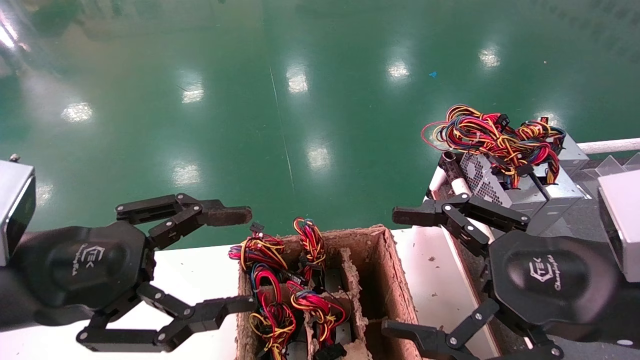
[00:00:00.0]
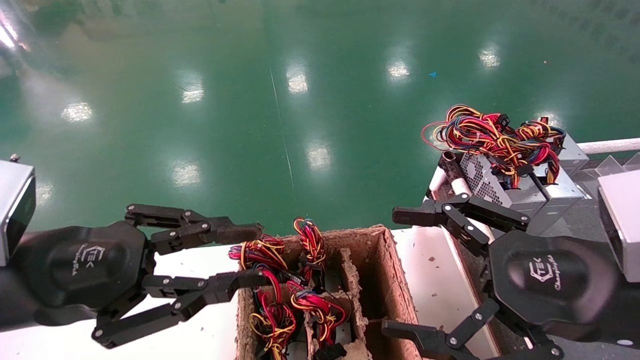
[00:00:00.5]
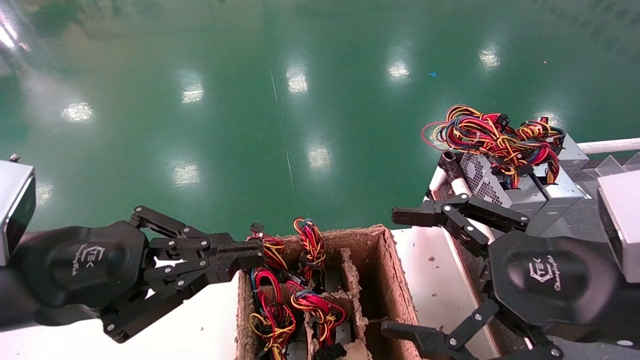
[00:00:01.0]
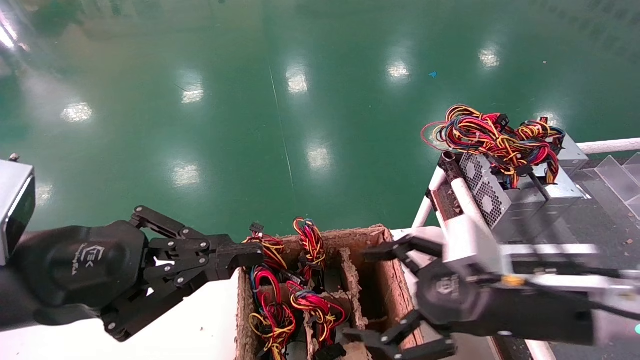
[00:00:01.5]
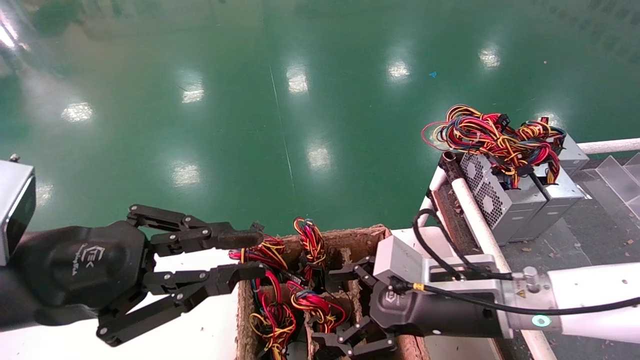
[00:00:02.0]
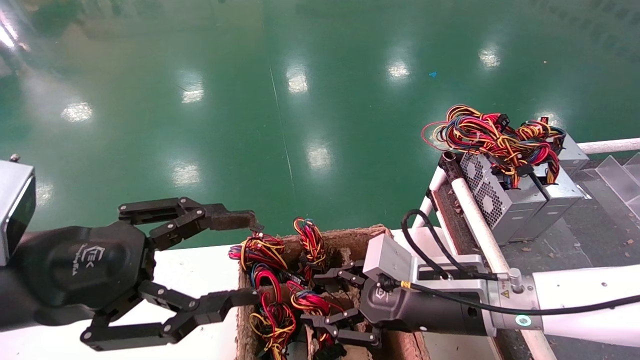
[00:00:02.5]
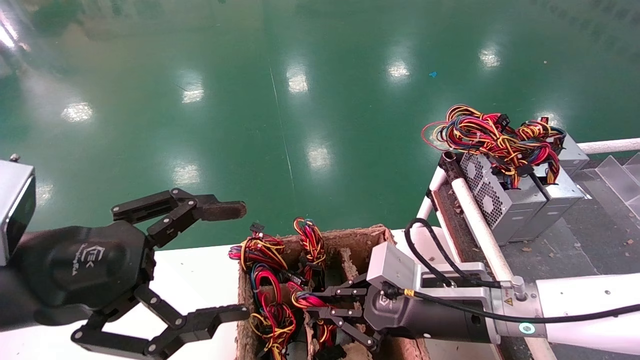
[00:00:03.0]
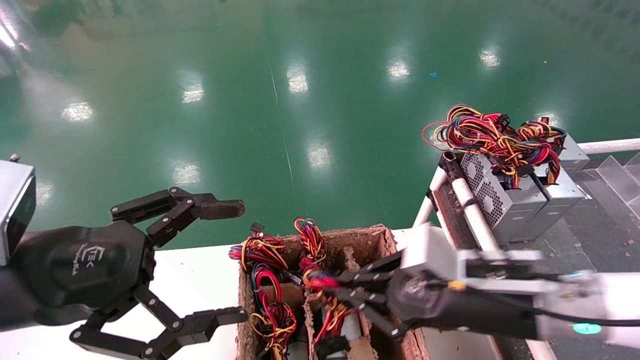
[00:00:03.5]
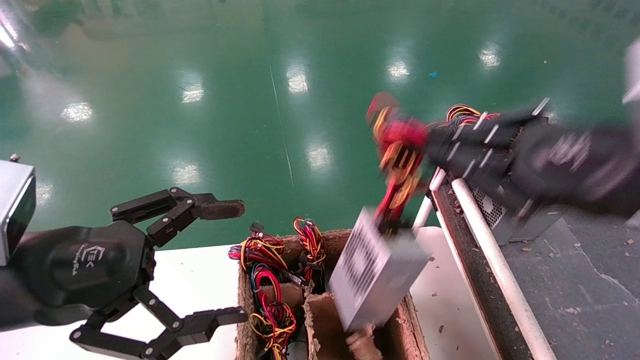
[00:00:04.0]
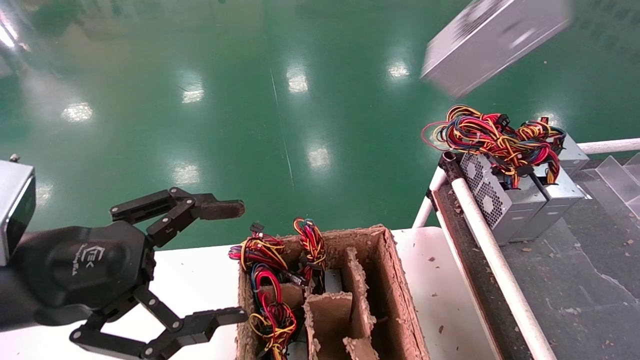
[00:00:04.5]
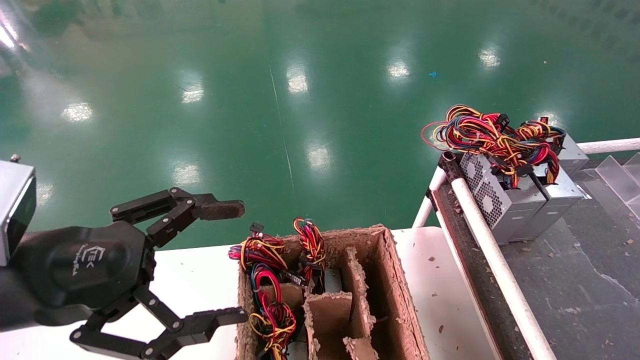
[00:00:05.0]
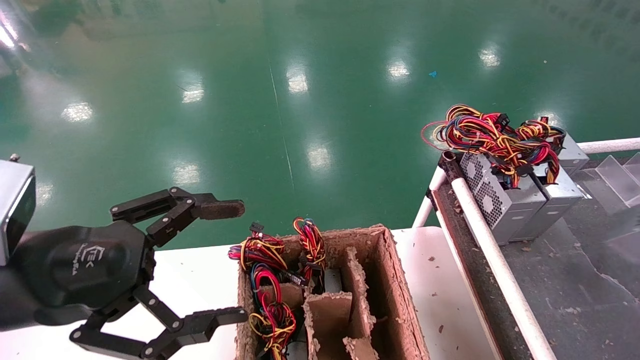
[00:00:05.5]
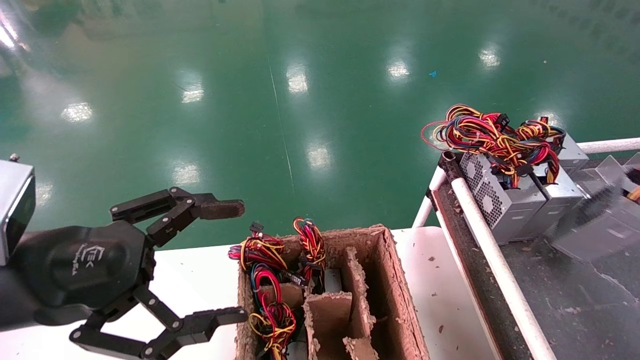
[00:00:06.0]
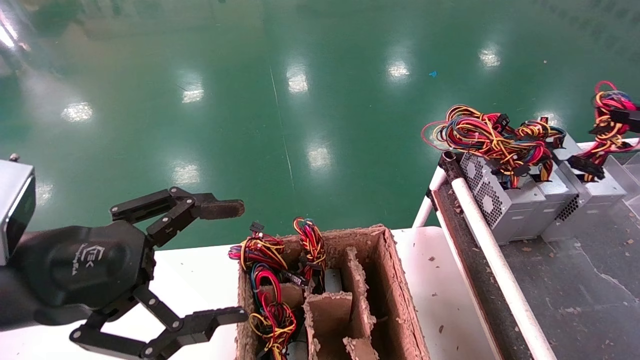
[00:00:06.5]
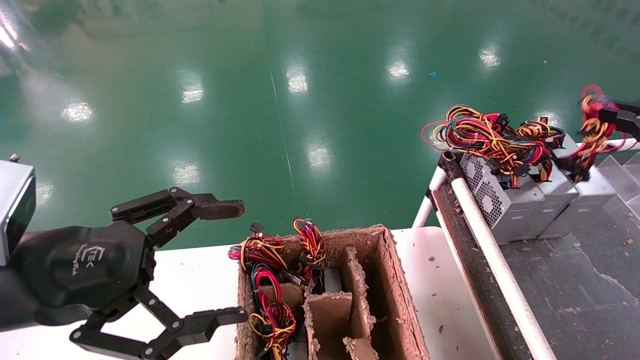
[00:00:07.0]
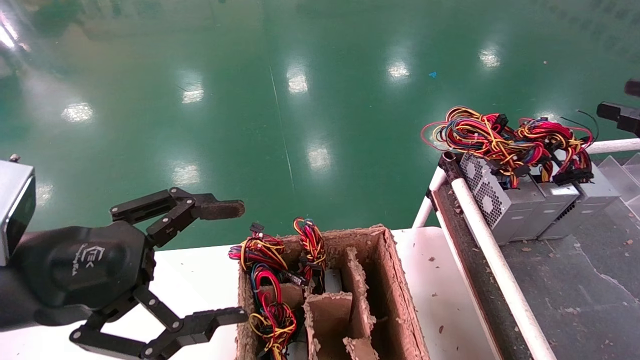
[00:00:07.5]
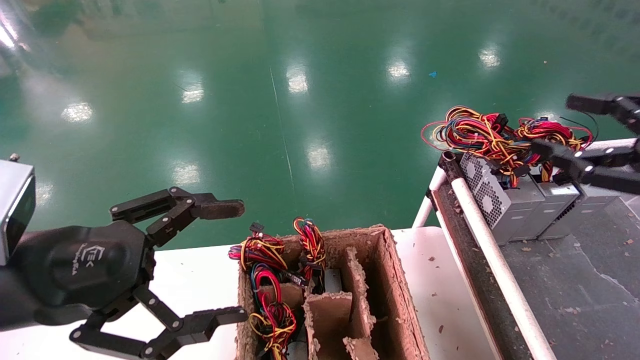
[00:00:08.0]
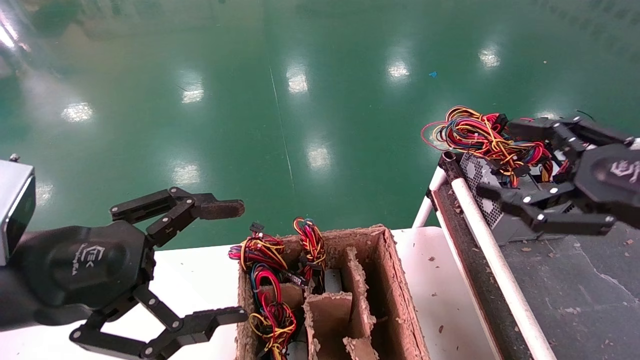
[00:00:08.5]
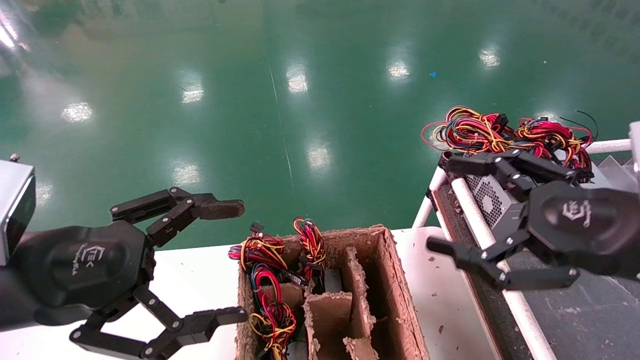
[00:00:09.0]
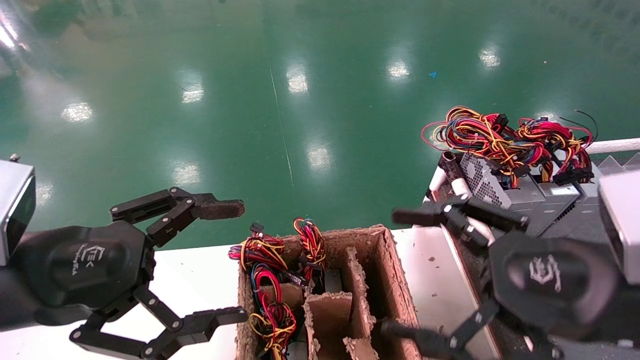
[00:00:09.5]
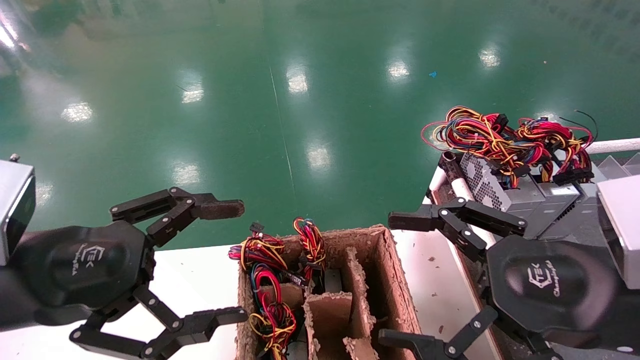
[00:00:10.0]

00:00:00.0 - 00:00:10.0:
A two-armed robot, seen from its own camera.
Step, 00:00:01.5 - 00:00:03.0: Grab and lift the power supply from the large box.
Step, 00:00:03.5 - 00:00:07.0: Place the power supply on the operating table.
00:00:00.0 - 00:00:02.0: The right gripper moves forward, downward and to the left, some 15 cm. The left gripper closes.
00:00:02.0 - 00:00:04.0: The left gripper opens. The right gripper travels upward, to the right and backward by roughly 20 cm, and closes its fingers.
00:00:04.0 - 00:00:06.0: The right gripper goes some 25 cm to the right.
00:00:06.0 - 00:00:08.0: The right gripper moves to the left, roughly 10 cm, and opens its fingers.
00:00:08.0 - 00:00:10.0: The right gripper shifts about 15 cm to the left.

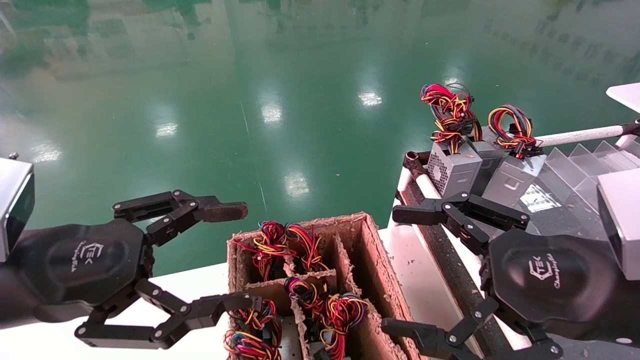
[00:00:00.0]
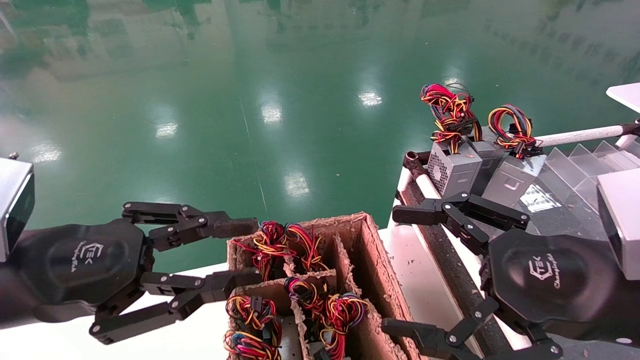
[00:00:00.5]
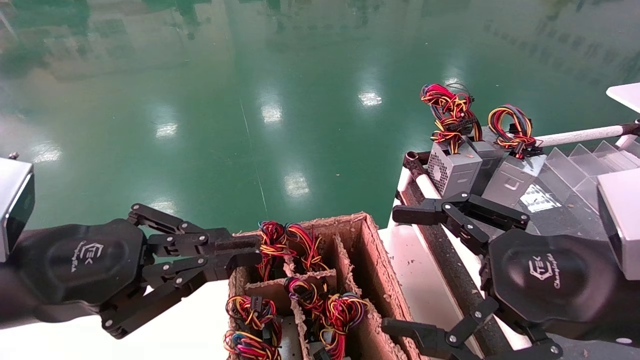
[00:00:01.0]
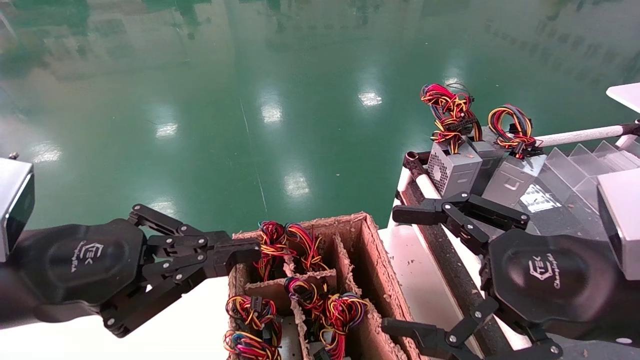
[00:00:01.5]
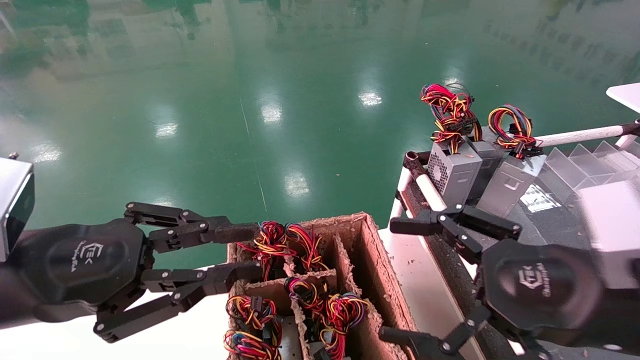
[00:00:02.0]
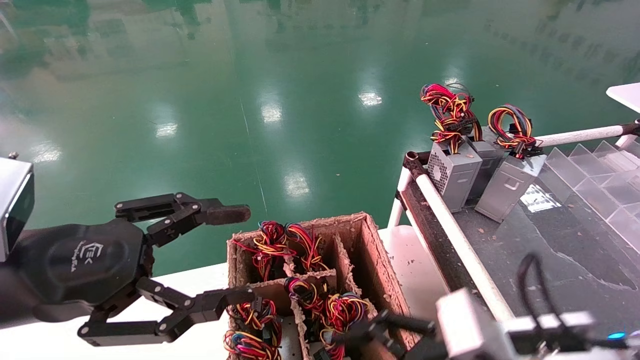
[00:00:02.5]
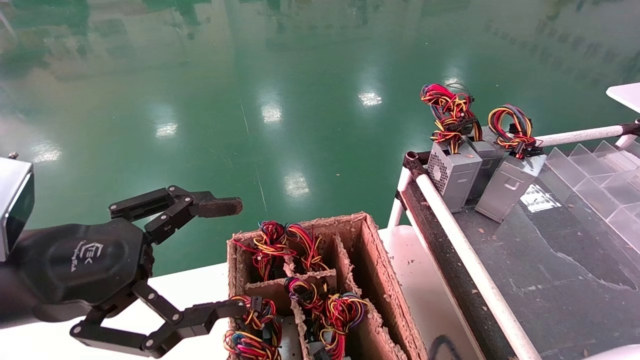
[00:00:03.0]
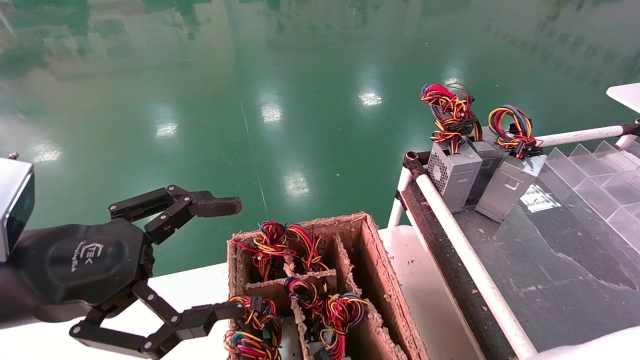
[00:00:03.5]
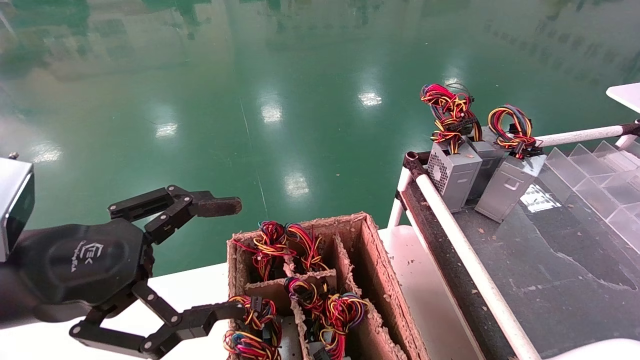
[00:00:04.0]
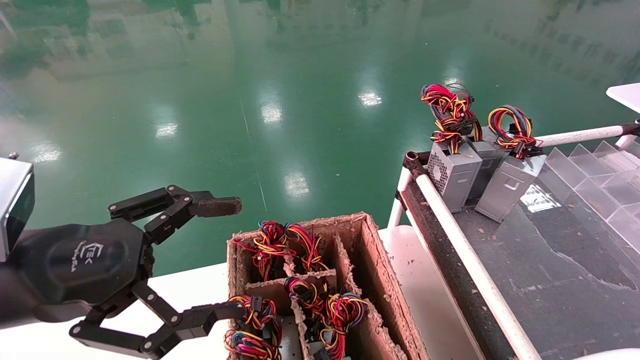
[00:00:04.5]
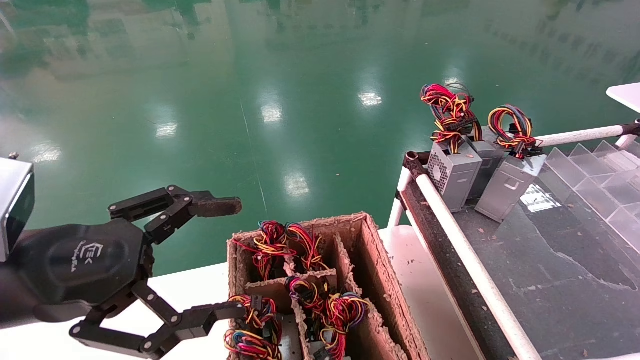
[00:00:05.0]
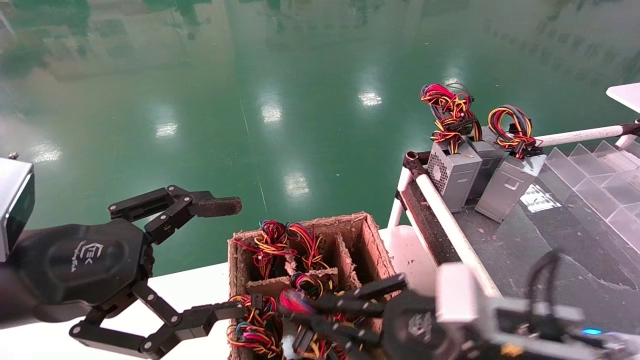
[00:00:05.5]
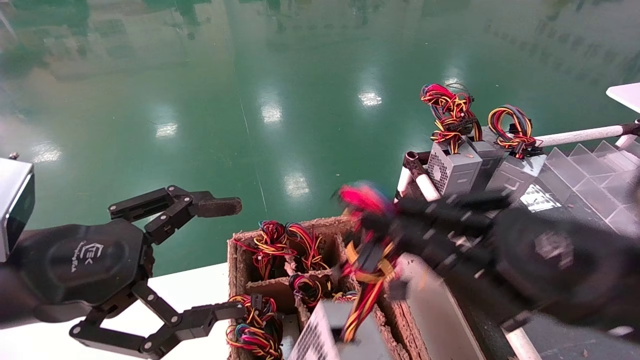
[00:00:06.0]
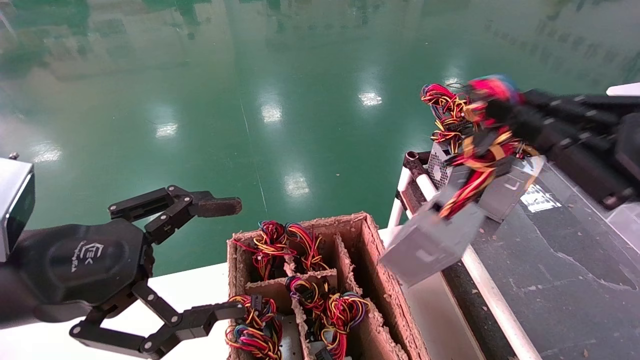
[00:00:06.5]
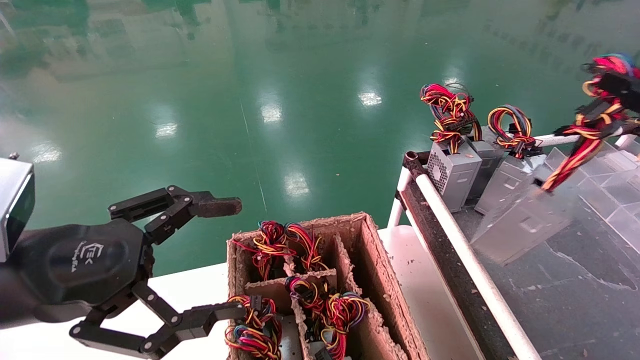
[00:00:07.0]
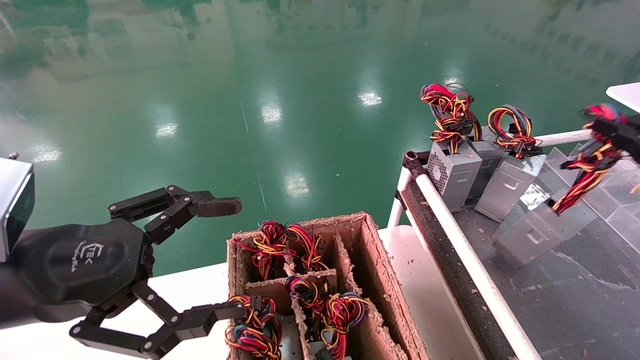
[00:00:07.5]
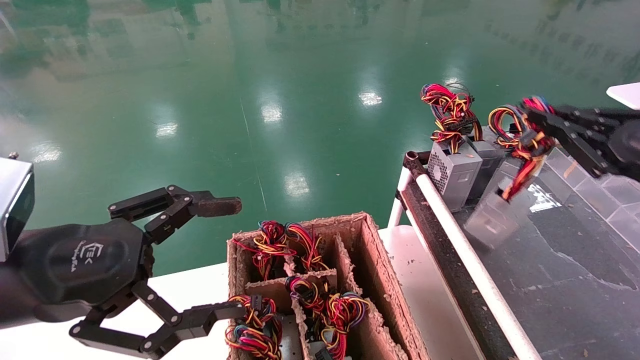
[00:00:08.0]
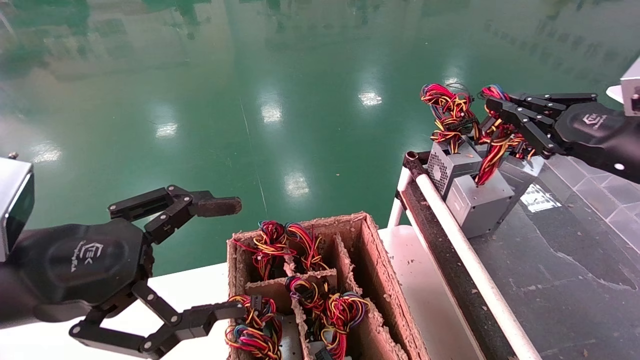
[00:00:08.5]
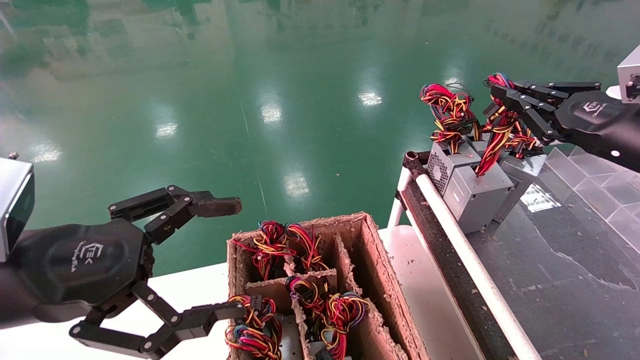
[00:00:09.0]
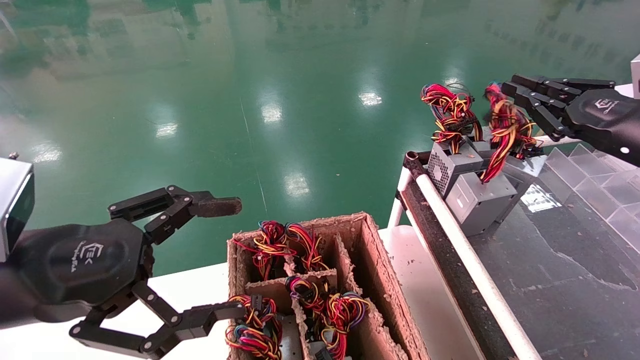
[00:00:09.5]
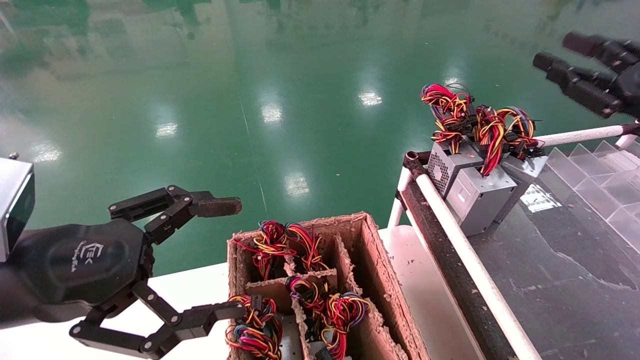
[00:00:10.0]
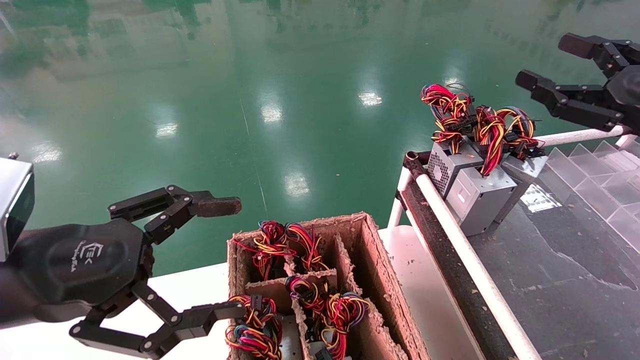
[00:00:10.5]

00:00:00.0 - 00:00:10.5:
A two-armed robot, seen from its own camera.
Step, 00:00:00.5 - 00:00:04.5: Grab and lift the power supply from the large box.
Step, 00:00:05.0 - 00:00:09.5: Place the power supply on the operating table.
00:00:00.0 - 00:00:02.0: The left gripper closes its fingers.
00:00:02.0 - 00:00:04.0: The left gripper opens its fingers. The right gripper travels to the left and downward by about 25 cm, and closes its fingers.
00:00:04.0 - 00:00:06.5: The right gripper travels to the right and upward by some 35 cm, and closes.
00:00:06.5 - 00:00:08.5: The right gripper heads forward and to the right, covering approximately 15 cm.
00:00:08.5 - 00:00:10.5: The right gripper opens.
